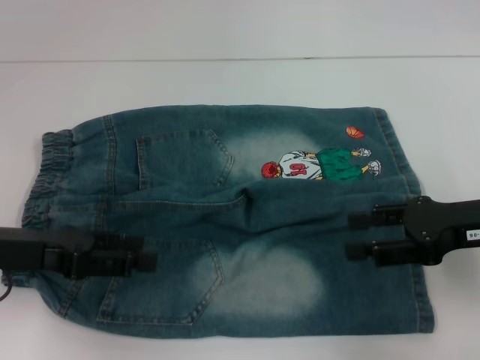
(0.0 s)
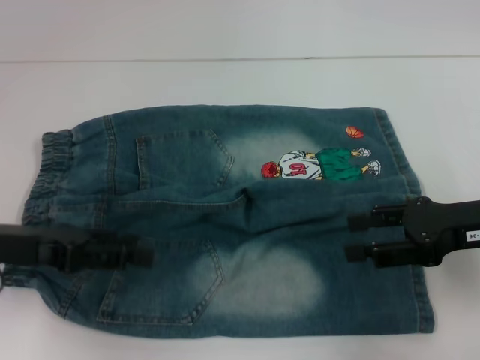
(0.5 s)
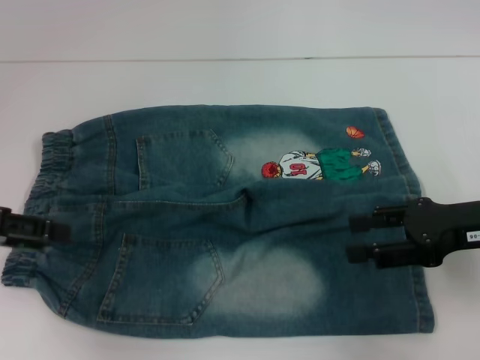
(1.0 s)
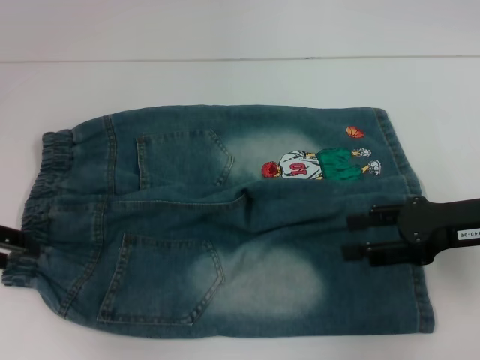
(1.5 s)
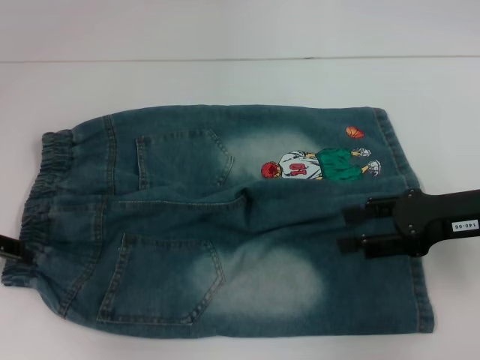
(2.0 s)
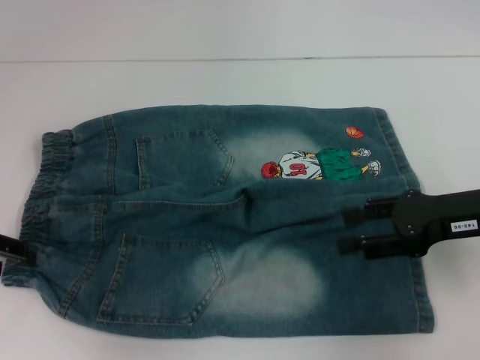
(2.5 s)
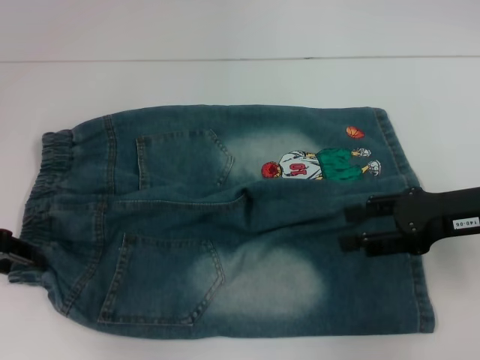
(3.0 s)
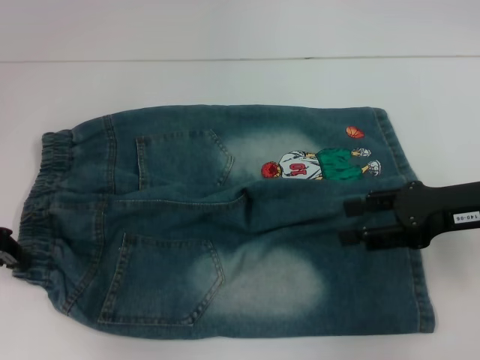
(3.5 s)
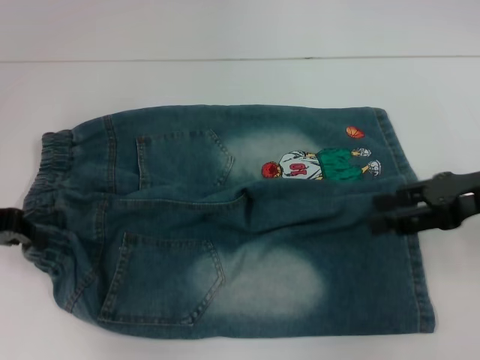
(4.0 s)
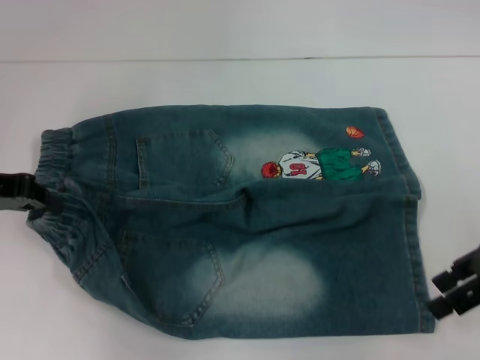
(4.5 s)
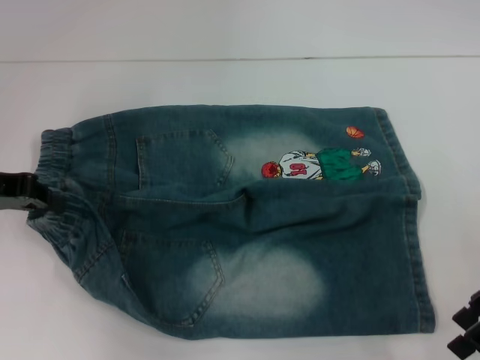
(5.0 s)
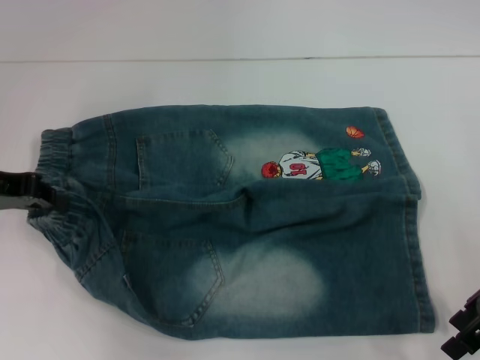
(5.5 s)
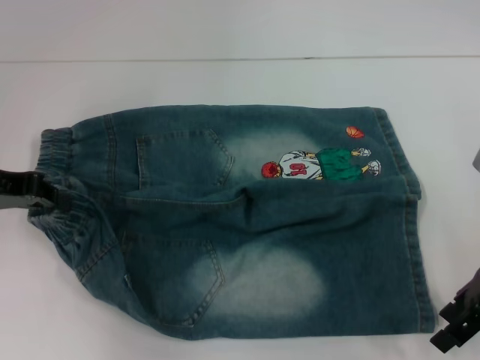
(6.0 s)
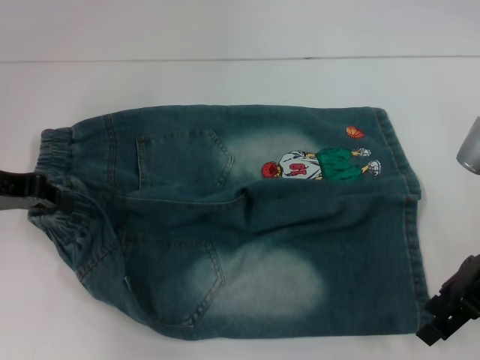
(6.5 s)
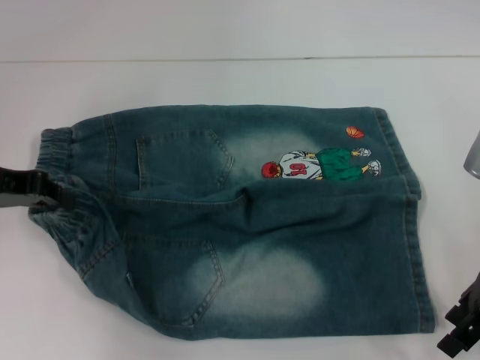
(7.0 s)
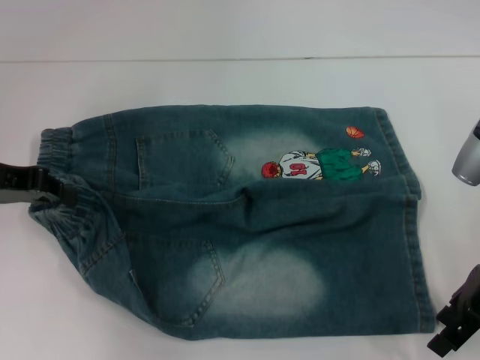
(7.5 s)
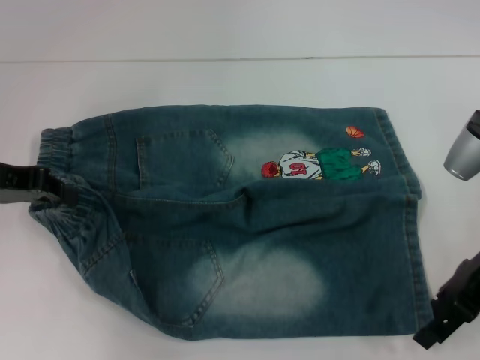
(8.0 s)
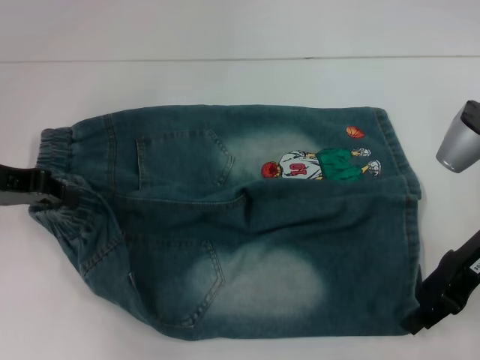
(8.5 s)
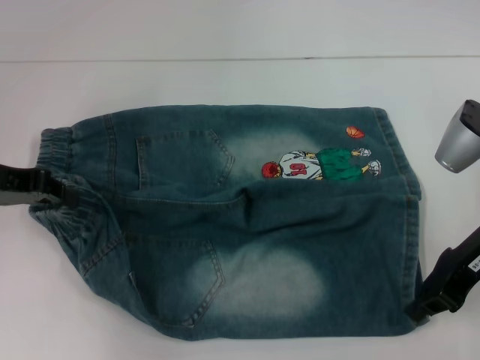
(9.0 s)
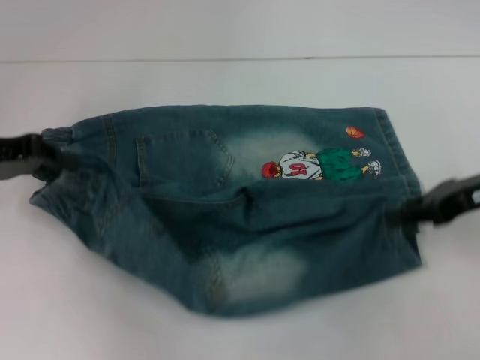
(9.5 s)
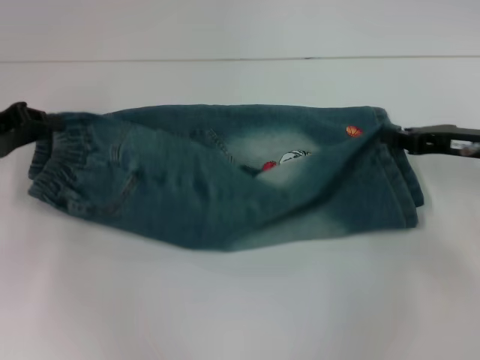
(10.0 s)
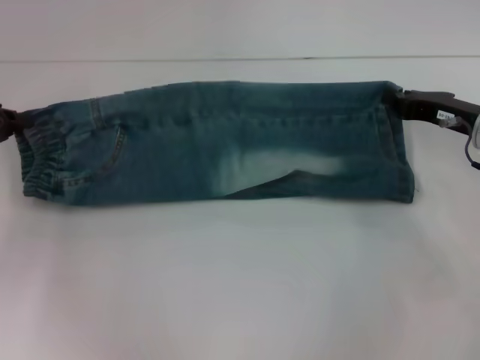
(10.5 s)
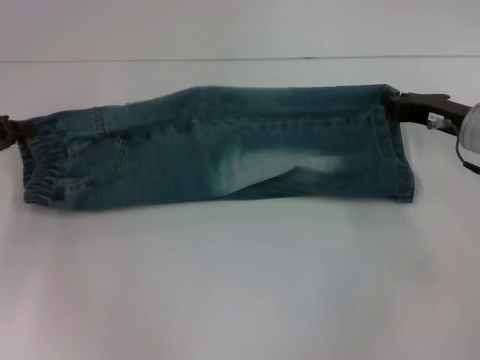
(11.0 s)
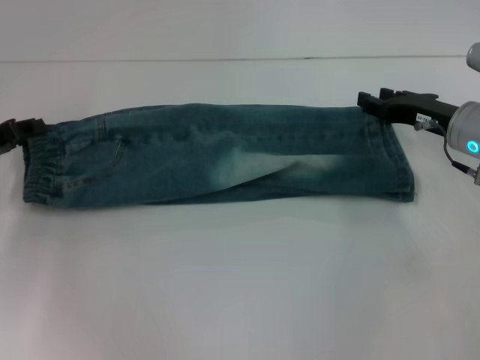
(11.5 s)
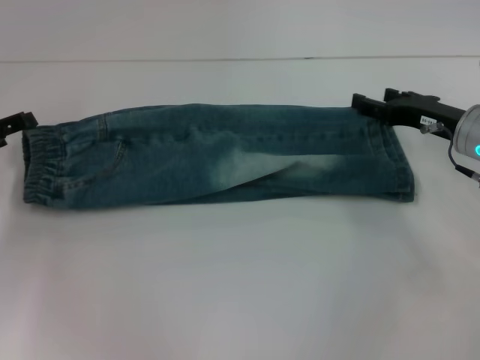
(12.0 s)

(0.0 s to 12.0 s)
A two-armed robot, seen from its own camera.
Step, 0.0 s - 3.0 s: Hold the lower left waistband with your left hand.
Step, 3.5 s - 8.5 s: Grab the lower right pant leg with your right hand.
Step, 9.0 s - 11.5 s: Fold upward with your right hand.
0.0 s - 2.0 s: The left gripper heads to the left, covering about 5 cm.
2.0 s - 4.0 s: The left gripper closes.
6.0 s - 8.0 s: The grippers stay close to where they were, moving slightly.
8.0 s - 10.0 s: The right gripper moves some 5 cm, and closes.
10.0 s - 12.0 s: The right gripper opens; the left gripper opens its fingers.

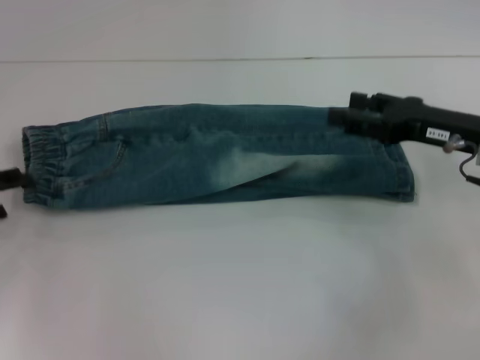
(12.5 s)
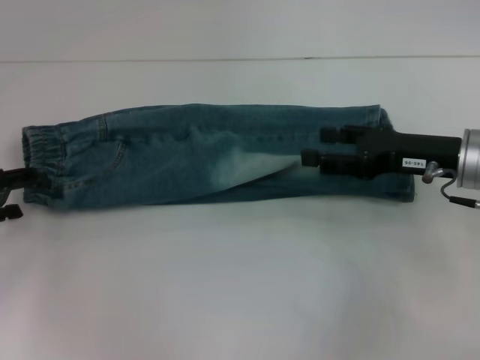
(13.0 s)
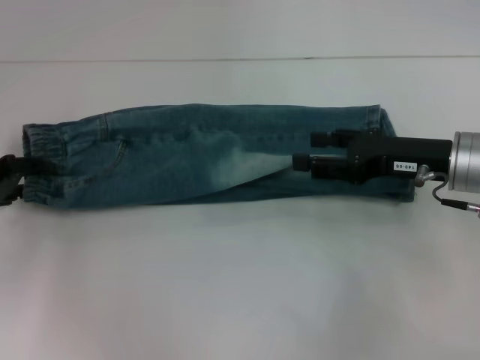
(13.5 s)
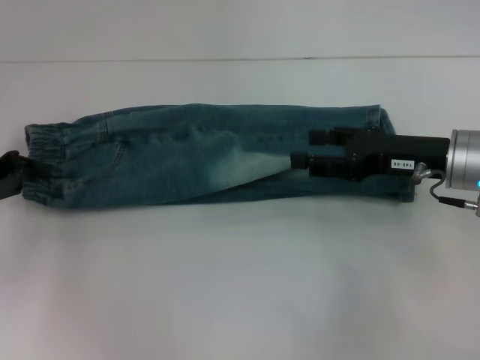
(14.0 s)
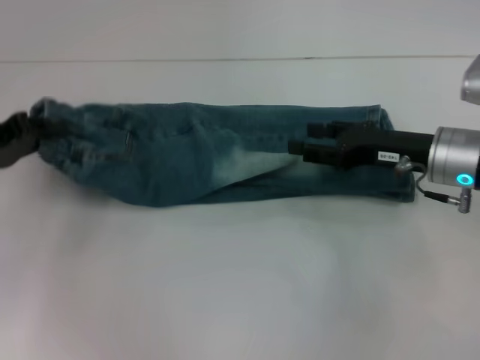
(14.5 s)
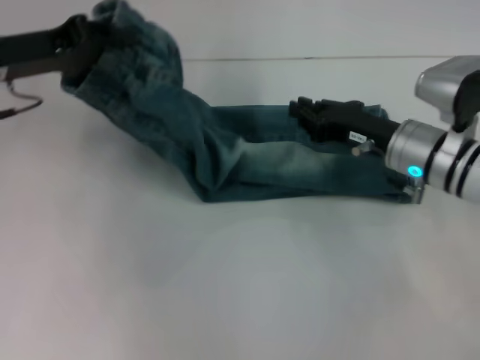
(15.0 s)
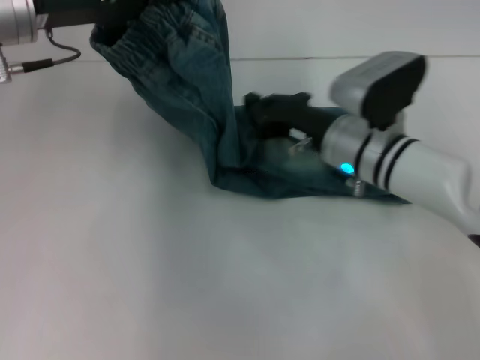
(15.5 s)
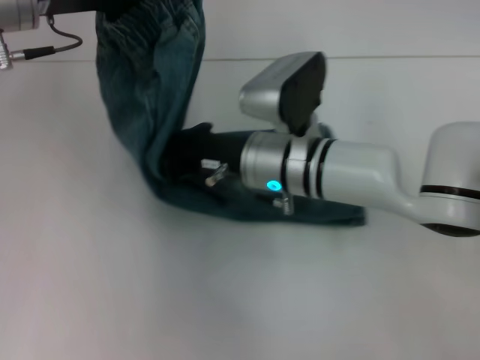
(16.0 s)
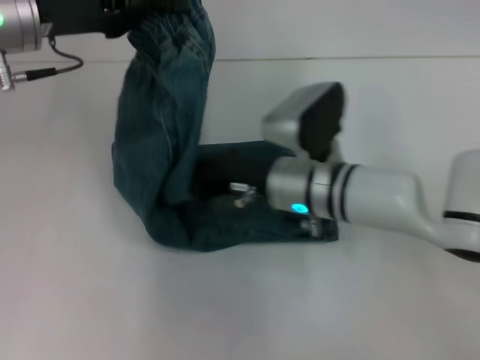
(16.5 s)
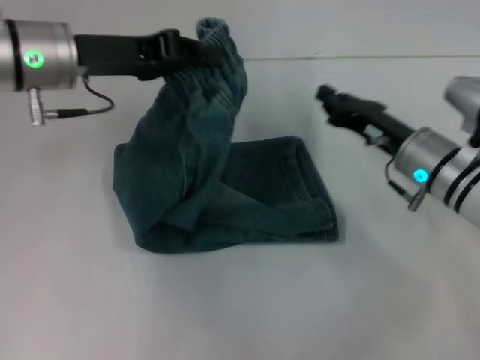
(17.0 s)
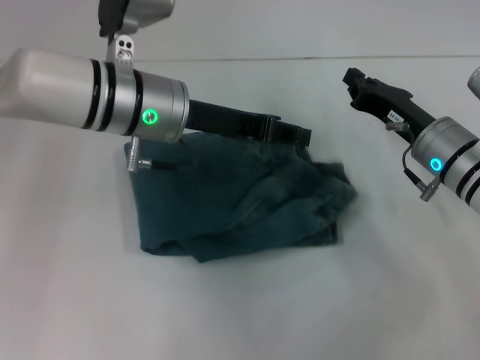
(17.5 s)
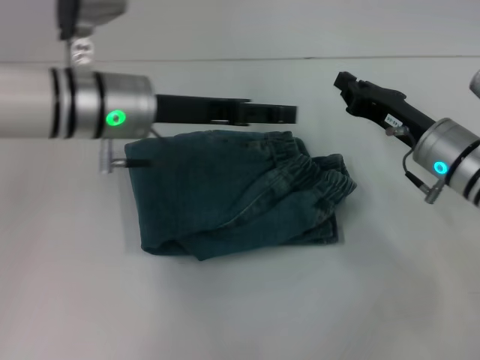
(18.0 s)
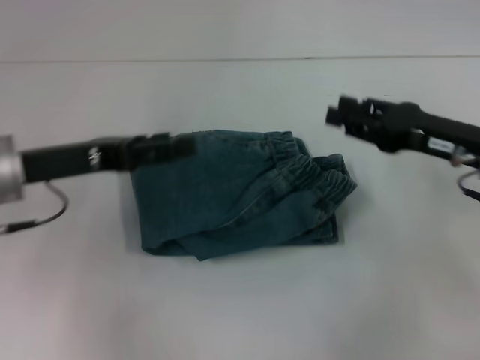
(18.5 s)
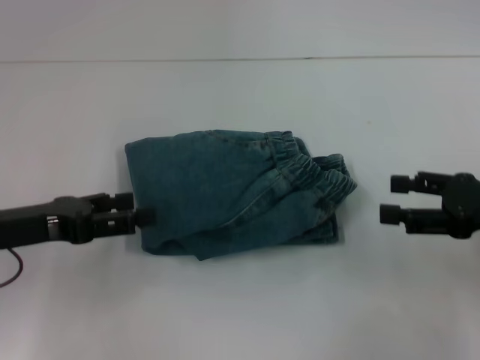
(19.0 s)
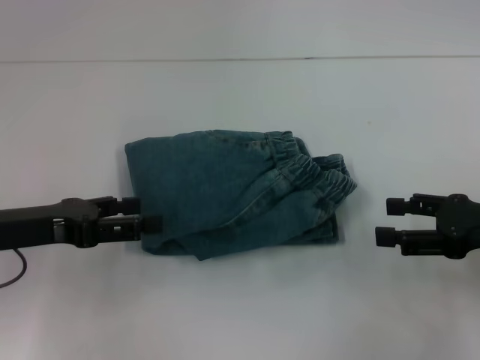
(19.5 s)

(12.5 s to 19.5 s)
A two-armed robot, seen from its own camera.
Step, 12.5 s - 13.5 s: Hold the waistband with your left hand.
Step, 14.0 s - 16.5 s: Press the middle of the pants with your right hand.
Step, 17.0 s - 17.5 s: Fold to the right with your left hand.
12.5 s - 14.5 s: The left gripper ends up roughly 5 cm from where it was, and closes.
14.5 s - 16.0 s: The right gripper travels to the left by roughly 20 cm, and closes up; the left gripper heads upward, to the right and forward, covering some 15 cm.
16.0 s - 17.5 s: The right gripper goes approximately 15 cm to the right, while the left gripper heads to the right and downward, covering approximately 15 cm.
17.5 s - 19.5 s: The right gripper is displaced to the right and backward by some 15 cm, and opens. The left gripper travels to the left and backward by approximately 20 cm, and opens.
